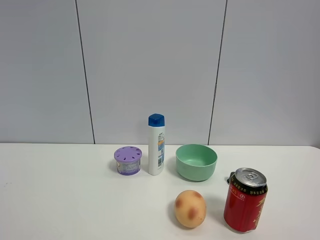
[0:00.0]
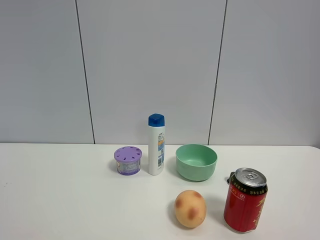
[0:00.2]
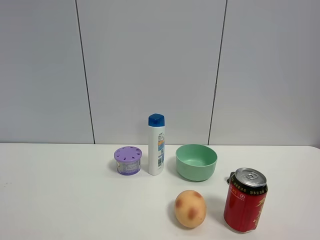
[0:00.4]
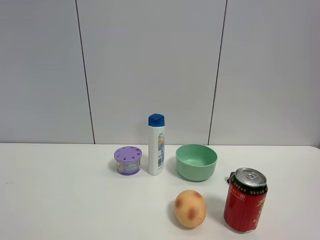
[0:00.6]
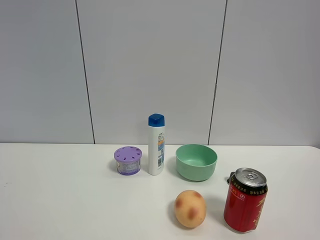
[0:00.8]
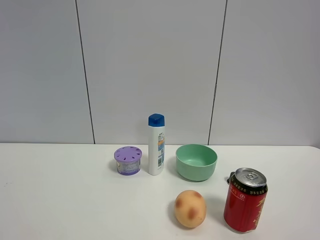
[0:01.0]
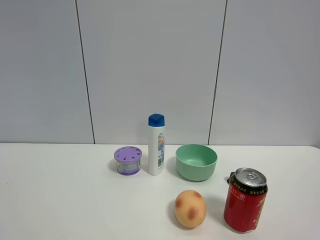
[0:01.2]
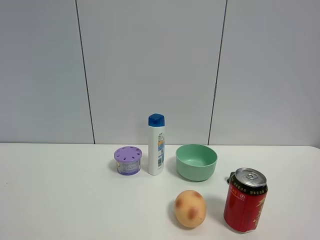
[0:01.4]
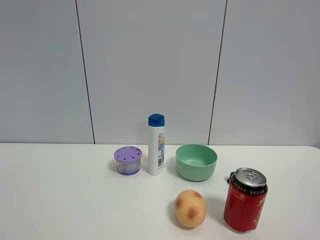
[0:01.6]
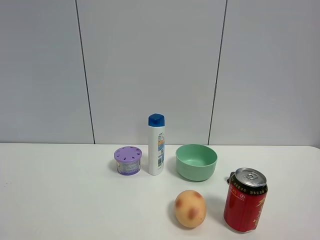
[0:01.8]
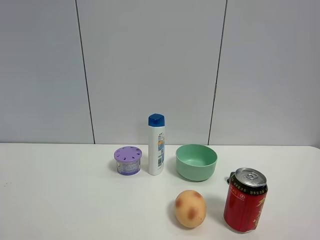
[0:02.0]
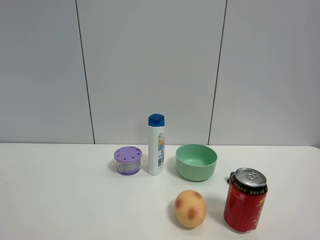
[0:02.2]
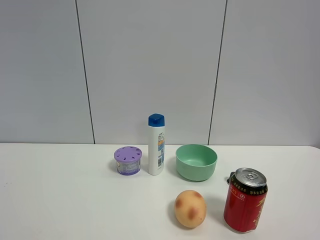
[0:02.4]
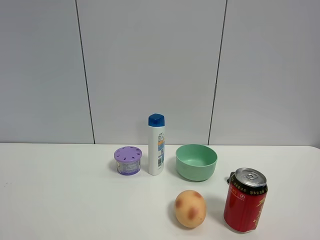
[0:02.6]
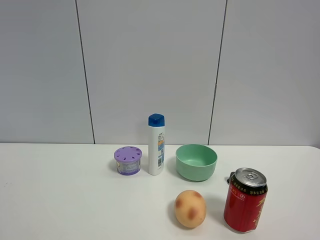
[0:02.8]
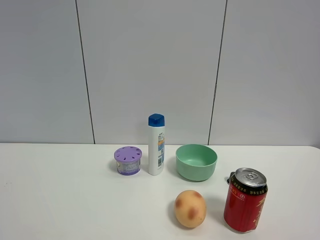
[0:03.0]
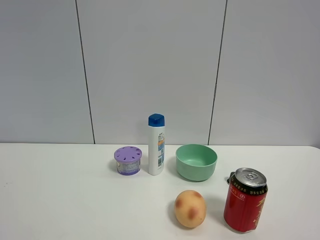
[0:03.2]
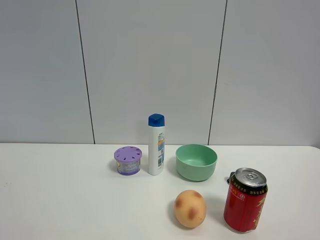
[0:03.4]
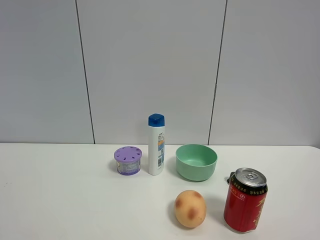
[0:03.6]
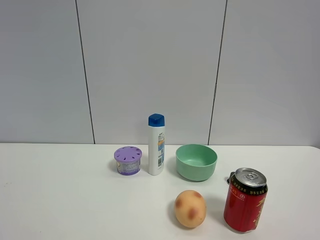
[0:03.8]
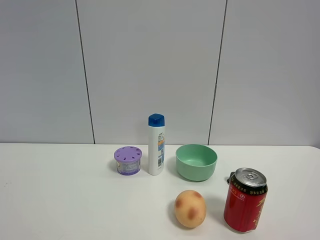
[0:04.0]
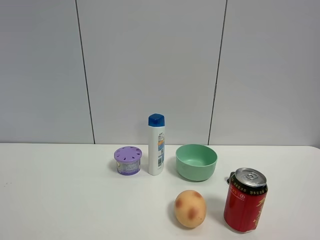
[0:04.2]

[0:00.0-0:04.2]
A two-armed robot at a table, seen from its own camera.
Task of the whole recording: the gripper move the object.
0:00.0 to 0:04.2: Neither gripper changes place.

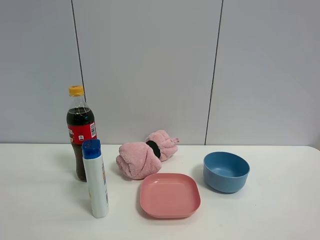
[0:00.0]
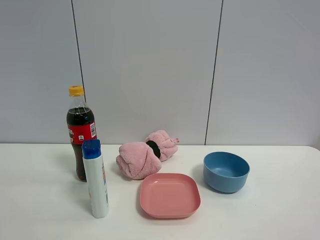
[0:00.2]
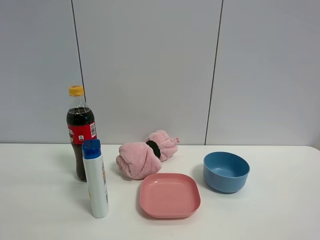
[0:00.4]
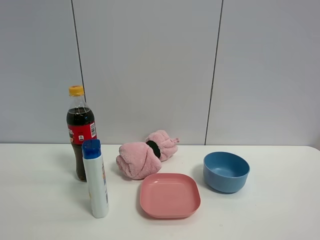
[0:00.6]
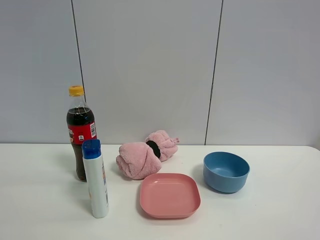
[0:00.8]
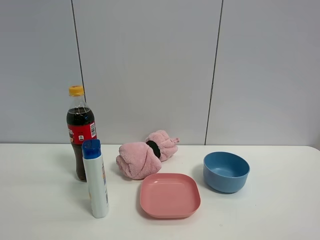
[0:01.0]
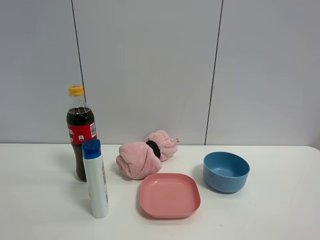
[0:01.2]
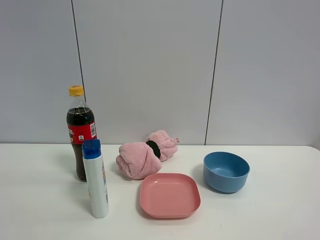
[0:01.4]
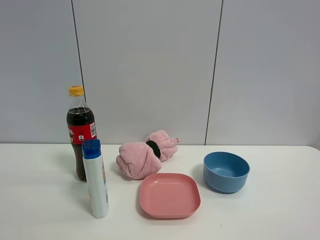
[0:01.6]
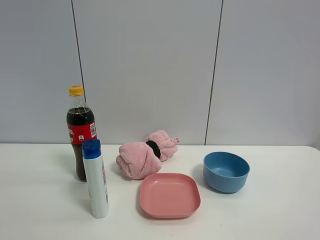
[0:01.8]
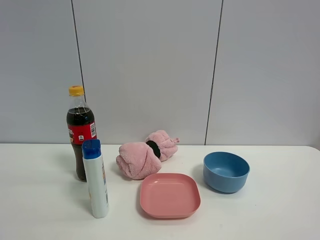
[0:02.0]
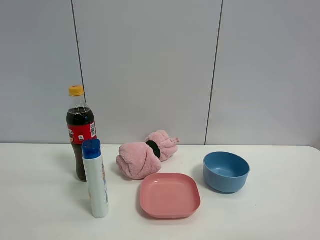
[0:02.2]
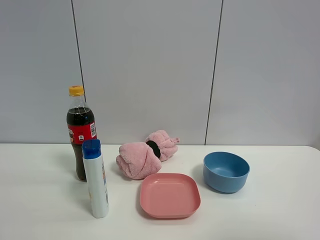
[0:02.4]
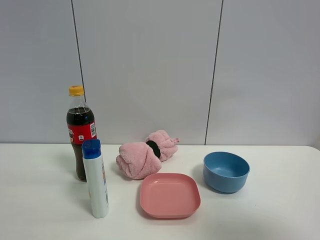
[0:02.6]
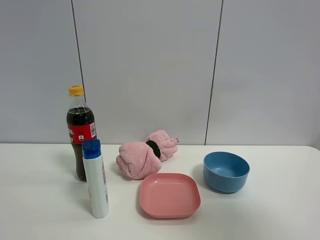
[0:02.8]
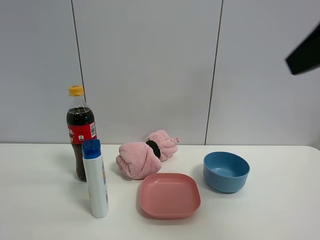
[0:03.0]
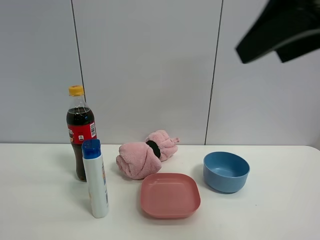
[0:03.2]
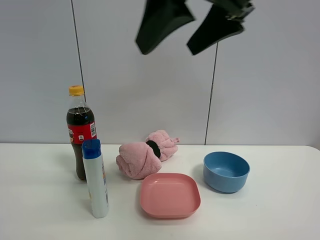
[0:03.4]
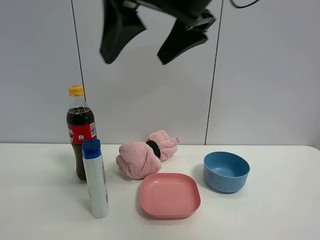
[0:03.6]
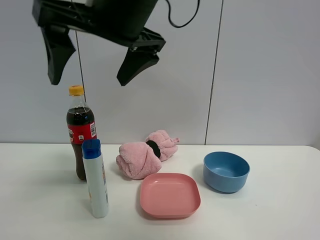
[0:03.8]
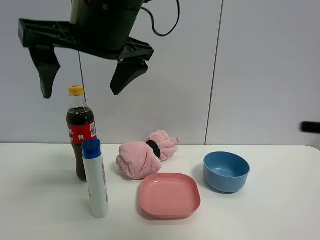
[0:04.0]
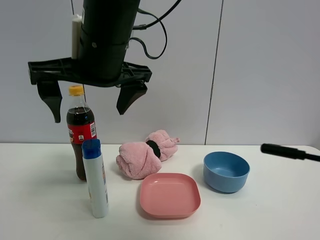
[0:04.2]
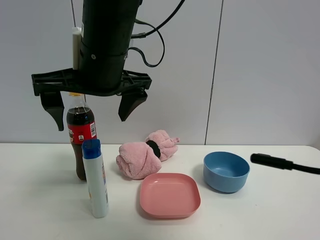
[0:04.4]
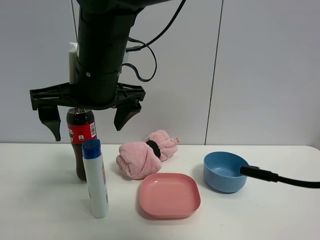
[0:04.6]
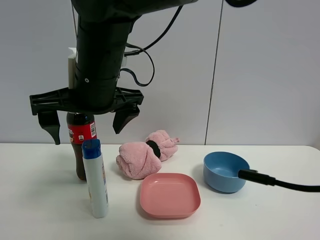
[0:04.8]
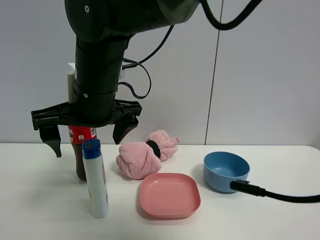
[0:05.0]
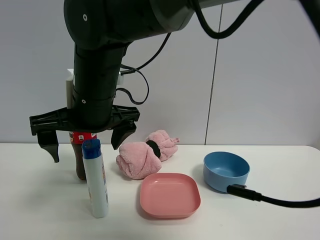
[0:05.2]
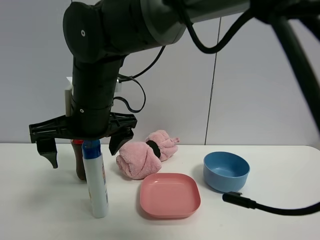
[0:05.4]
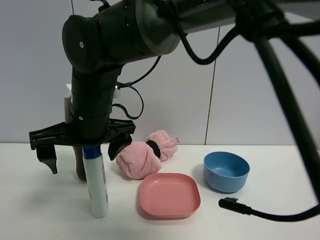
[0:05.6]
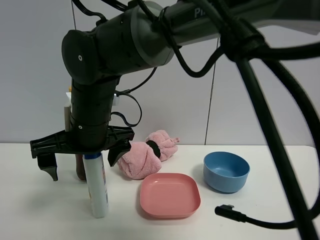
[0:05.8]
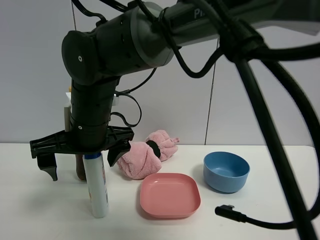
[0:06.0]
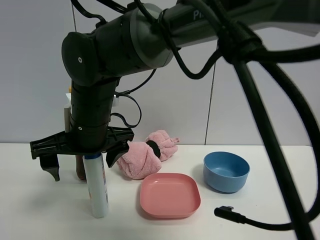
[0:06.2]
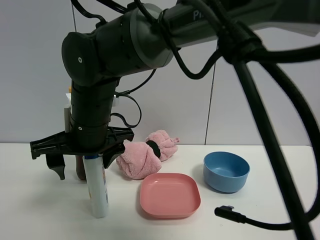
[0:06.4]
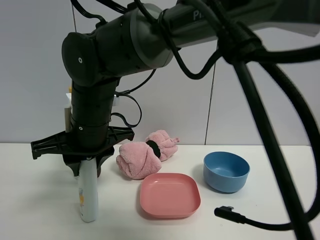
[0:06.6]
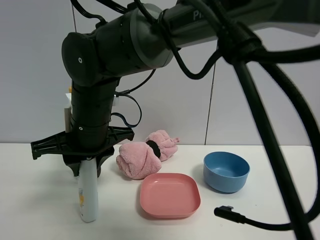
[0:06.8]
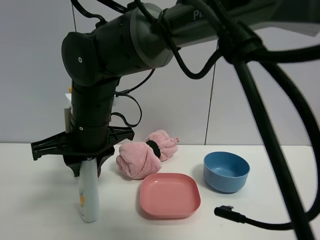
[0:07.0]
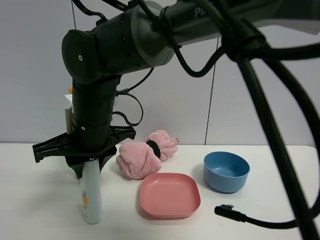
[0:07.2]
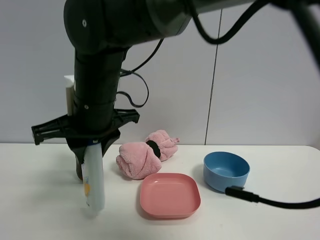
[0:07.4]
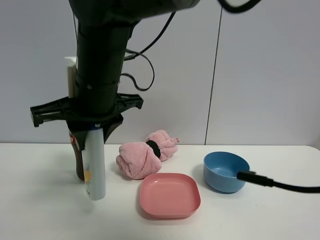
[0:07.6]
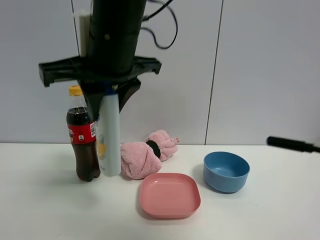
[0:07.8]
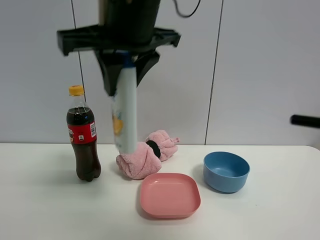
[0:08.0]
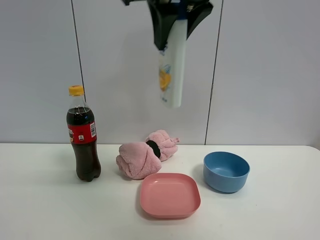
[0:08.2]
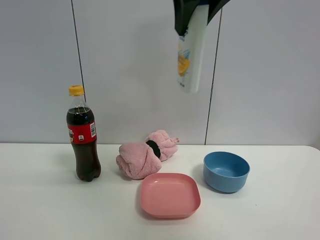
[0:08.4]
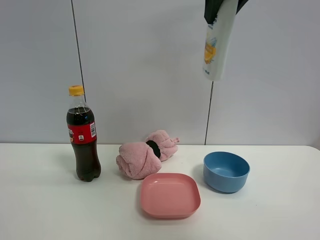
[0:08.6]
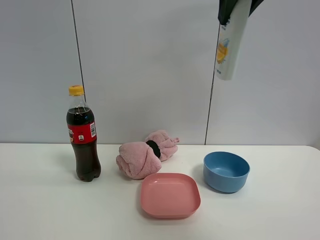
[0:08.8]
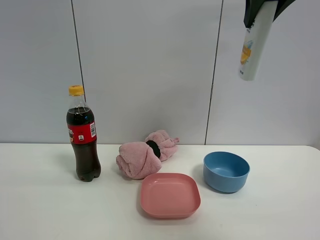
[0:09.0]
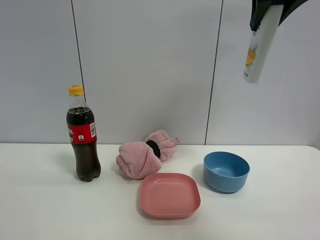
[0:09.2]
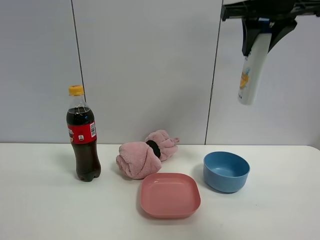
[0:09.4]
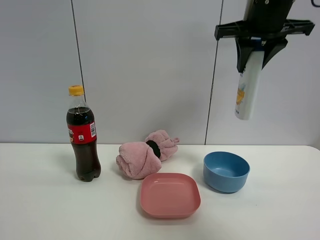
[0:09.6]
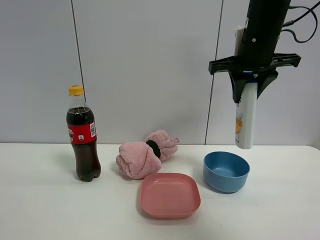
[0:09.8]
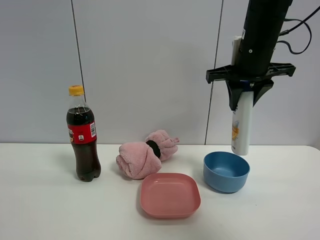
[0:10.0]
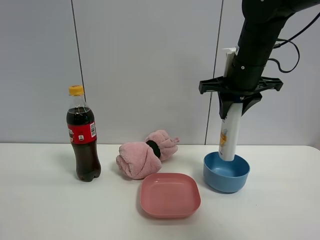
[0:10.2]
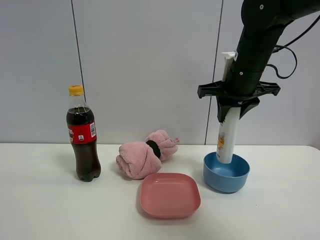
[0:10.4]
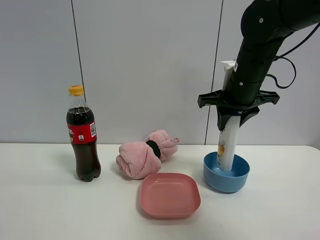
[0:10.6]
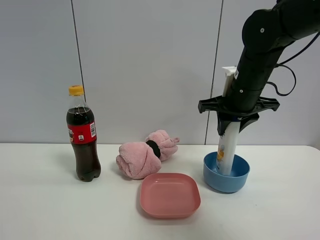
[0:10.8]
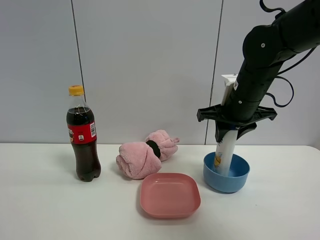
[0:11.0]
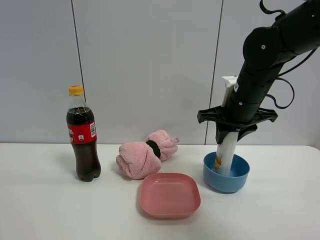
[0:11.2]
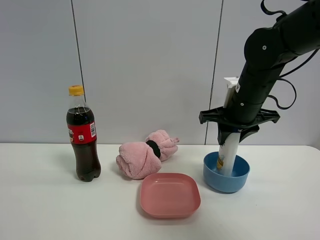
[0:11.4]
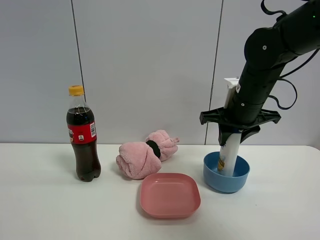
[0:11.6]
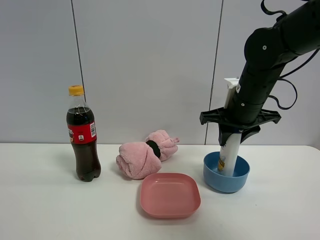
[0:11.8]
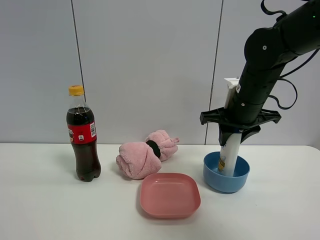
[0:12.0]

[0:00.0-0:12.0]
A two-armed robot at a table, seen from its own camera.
Task of the whole recording: the gripper move the object.
Step, 0:00.0 to 0:06.8: Grasp the shampoo with the right gripper.
0:00.0 to 0:01.6: Both grippers stay put.
0:01.6 to 0:03.0: The right gripper goes roughly 20 cm forward, upward and to the left.
0:03.0 to 0:04.4: The right gripper is displaced to the left by approximately 30 cm.
0:04.4 to 0:06.0: The right gripper goes approximately 10 cm downward.
0:06.0 to 0:07.6: The right gripper is displaced upward by about 5 cm, and closes up.
0:07.6 to 0:09.0: The right gripper travels to the right and upward by roughly 30 cm.
0:09.0 to 0:10.4: The right gripper moves downward, about 20 cm.
0:10.4 to 0:12.0: The right gripper heads downward, covering approximately 5 cm.

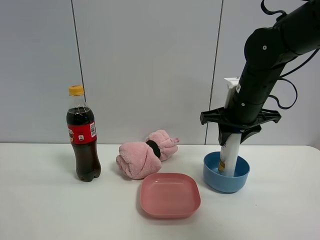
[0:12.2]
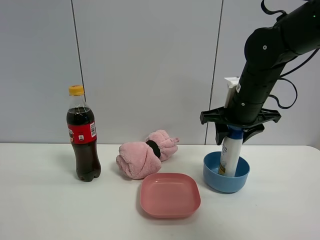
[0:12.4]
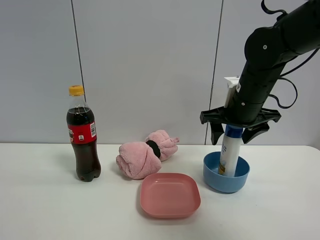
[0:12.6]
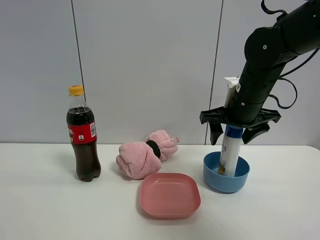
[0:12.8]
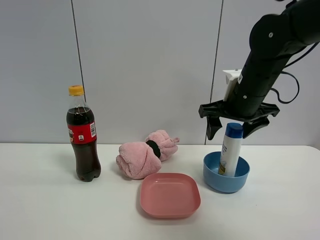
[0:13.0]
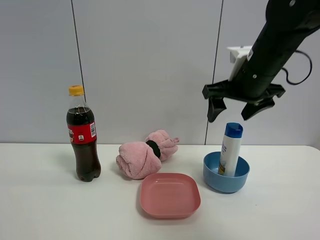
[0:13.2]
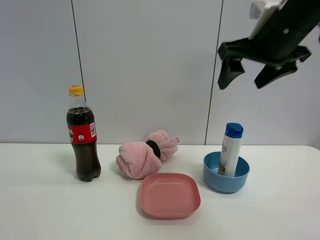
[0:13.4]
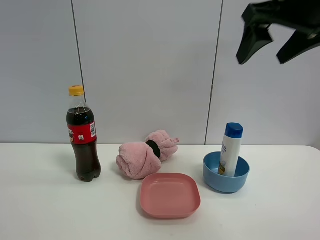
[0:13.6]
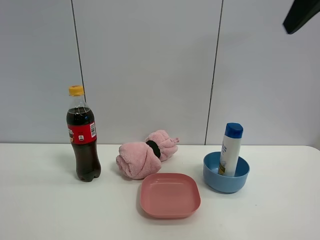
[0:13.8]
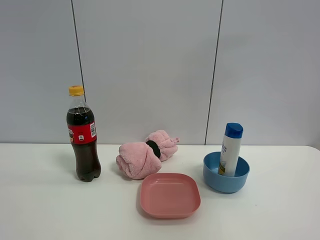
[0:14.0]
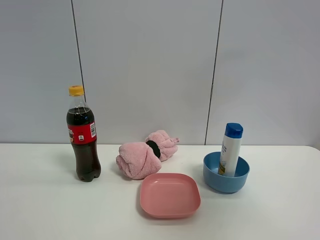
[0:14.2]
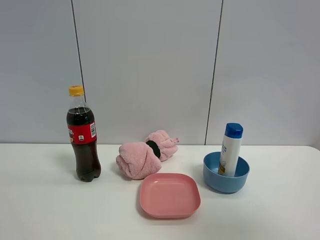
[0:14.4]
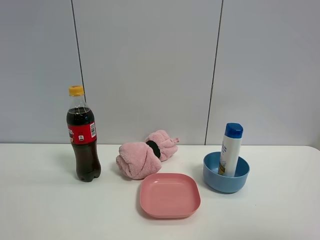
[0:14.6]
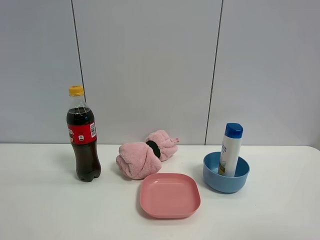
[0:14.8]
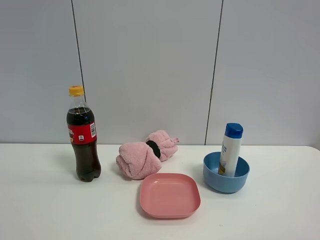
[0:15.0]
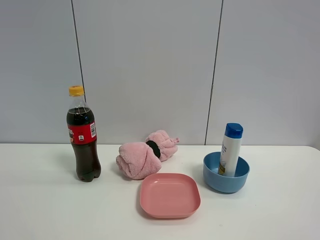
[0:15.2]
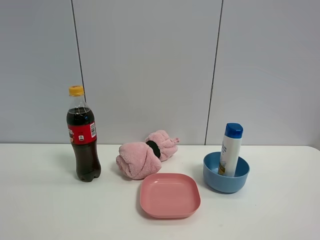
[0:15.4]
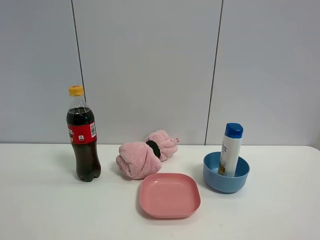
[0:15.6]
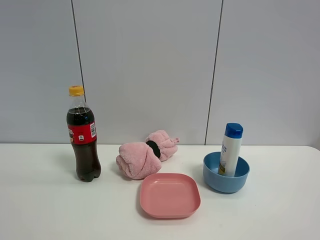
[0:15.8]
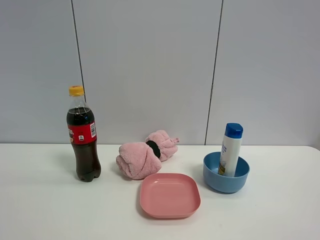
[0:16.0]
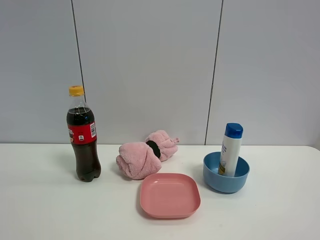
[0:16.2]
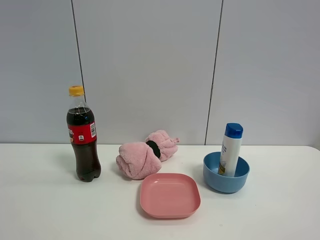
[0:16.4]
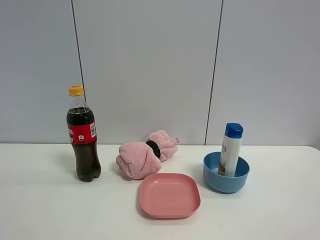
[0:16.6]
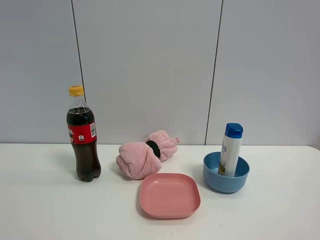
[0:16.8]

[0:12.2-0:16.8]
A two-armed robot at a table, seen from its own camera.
Task of the whole recording: the gripper move the object.
0:12.2 to 0:13.8: The right gripper is displaced upward and backward by approximately 30 cm, and opens.
0:13.8 to 0:15.2: The right gripper travels backward and downward by approximately 25 cm.

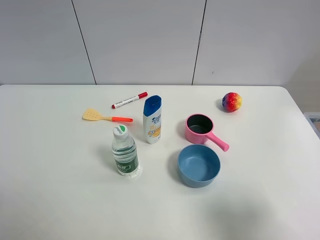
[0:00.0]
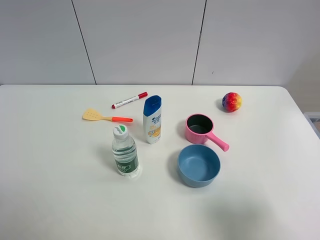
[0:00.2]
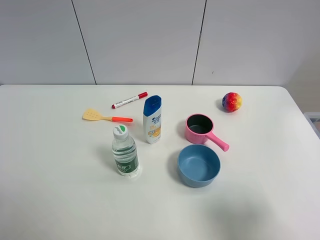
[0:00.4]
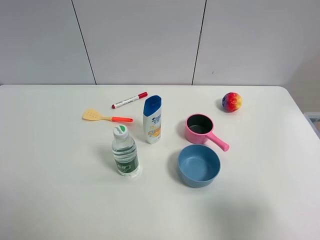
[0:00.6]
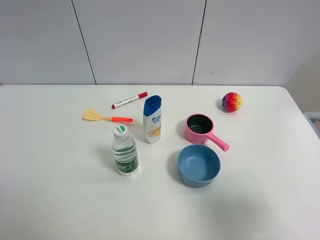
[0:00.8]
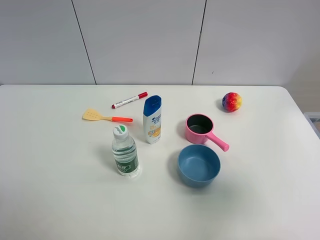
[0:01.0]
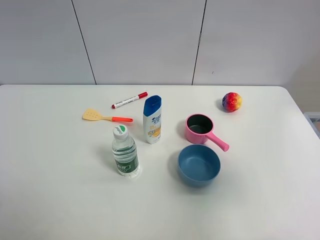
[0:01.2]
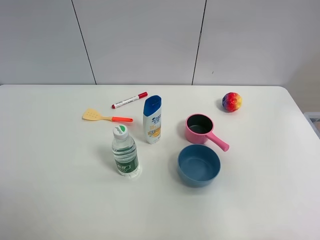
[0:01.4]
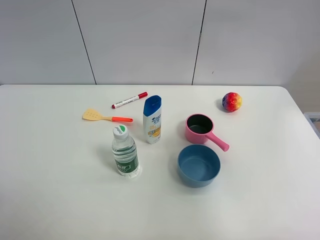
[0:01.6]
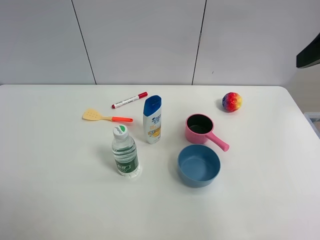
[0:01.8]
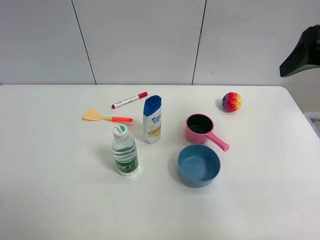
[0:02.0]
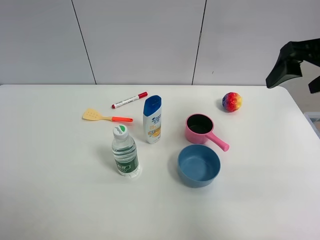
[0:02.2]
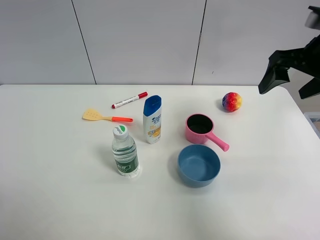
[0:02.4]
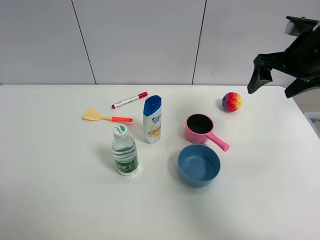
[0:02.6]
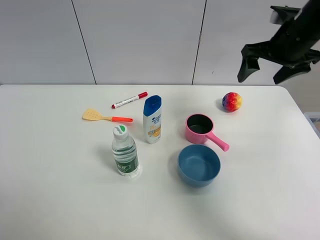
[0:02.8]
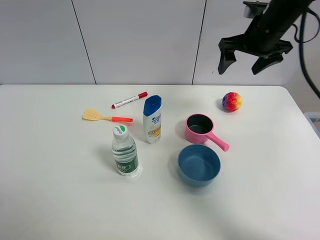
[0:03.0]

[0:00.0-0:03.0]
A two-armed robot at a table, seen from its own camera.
Task of the whole recording: the gripper move the object.
0:00.0 to 0:01.6: The right gripper goes approximately 20 cm upward and forward.
0:01.6 to 0:03.0: The right gripper goes roughly 30 cm forward and downward.
